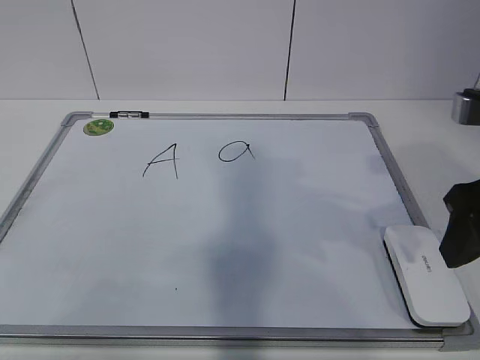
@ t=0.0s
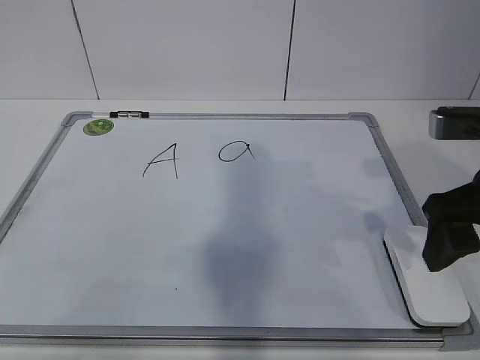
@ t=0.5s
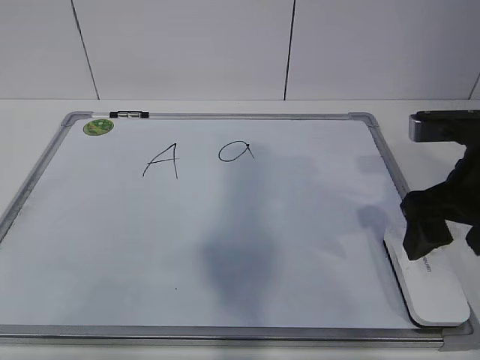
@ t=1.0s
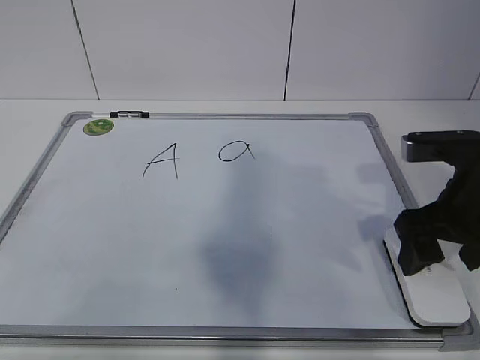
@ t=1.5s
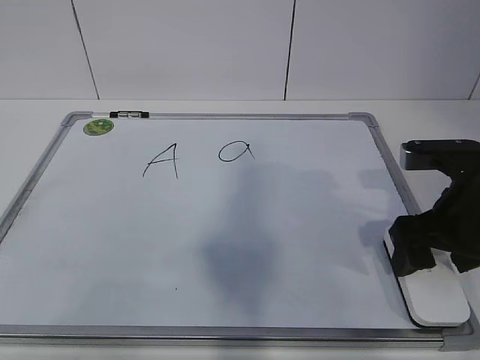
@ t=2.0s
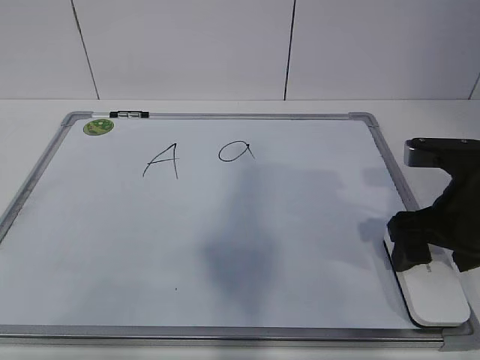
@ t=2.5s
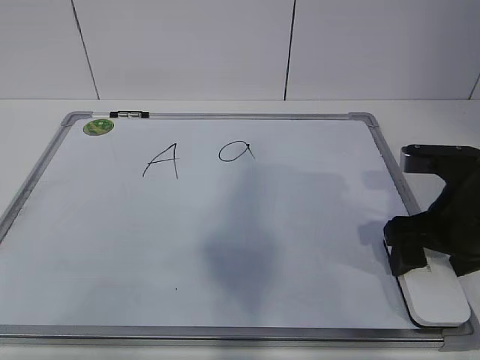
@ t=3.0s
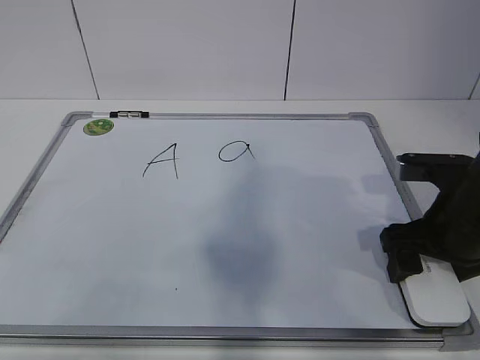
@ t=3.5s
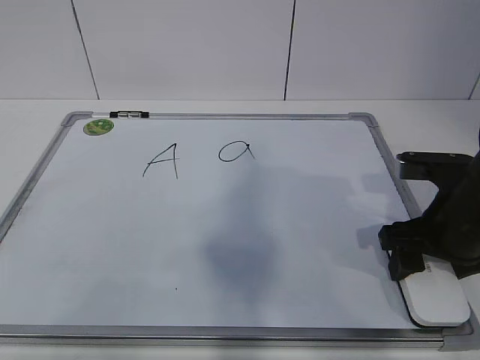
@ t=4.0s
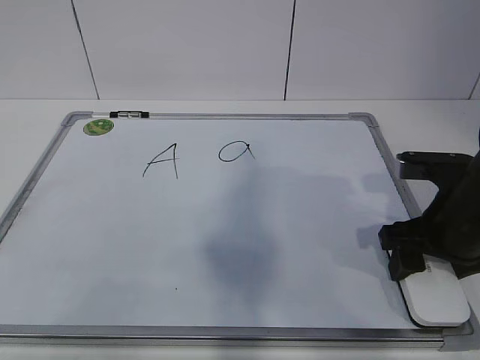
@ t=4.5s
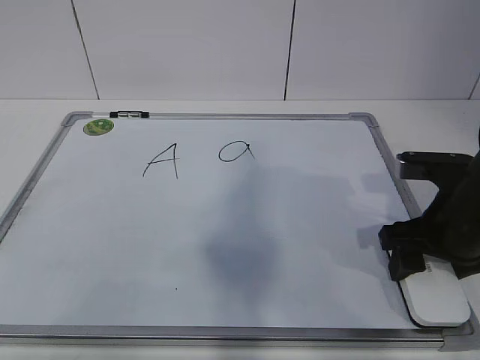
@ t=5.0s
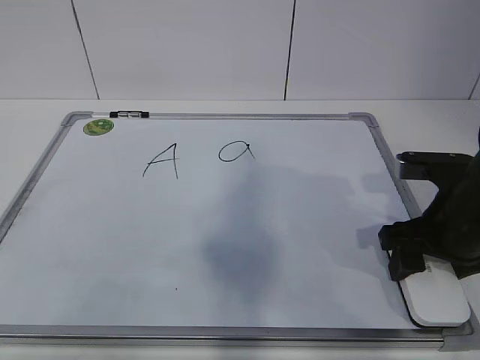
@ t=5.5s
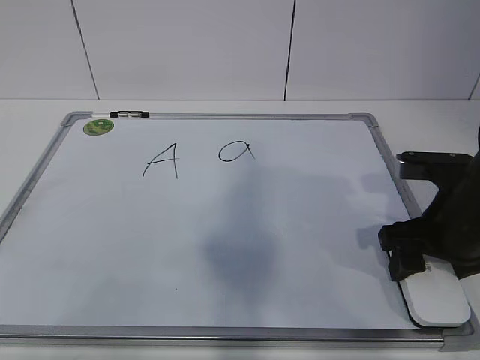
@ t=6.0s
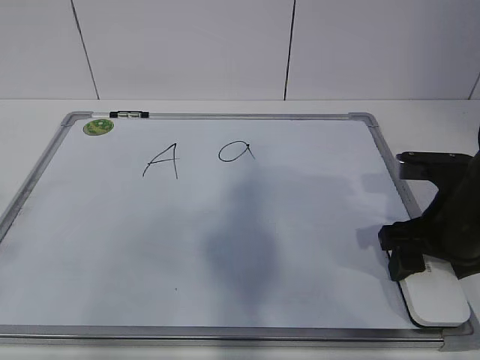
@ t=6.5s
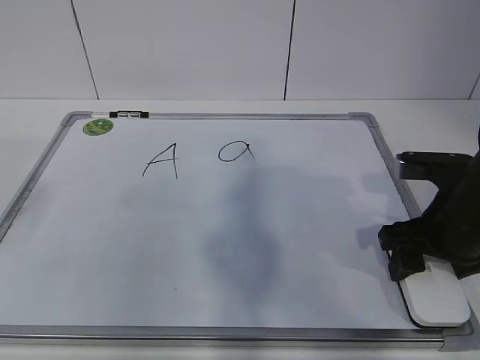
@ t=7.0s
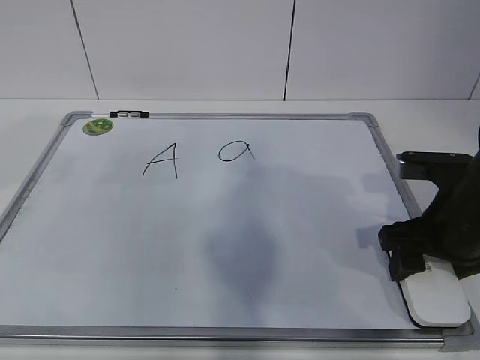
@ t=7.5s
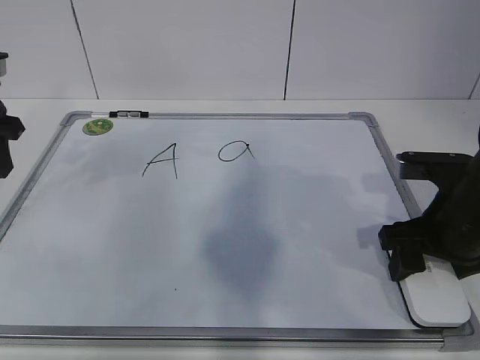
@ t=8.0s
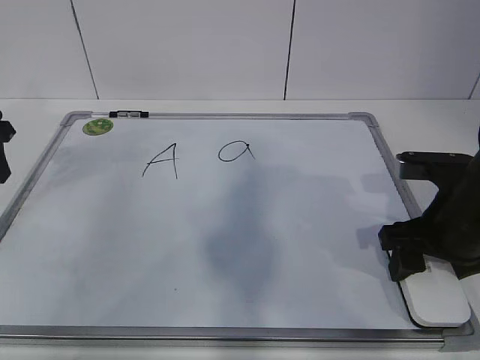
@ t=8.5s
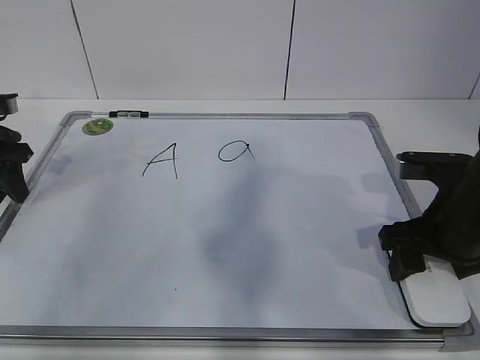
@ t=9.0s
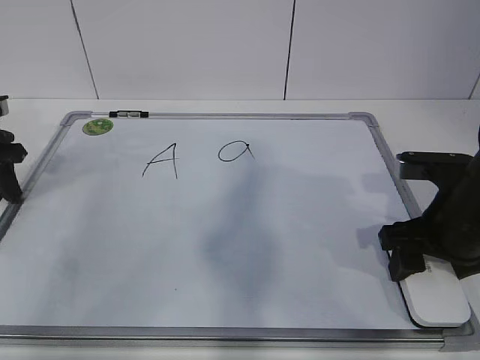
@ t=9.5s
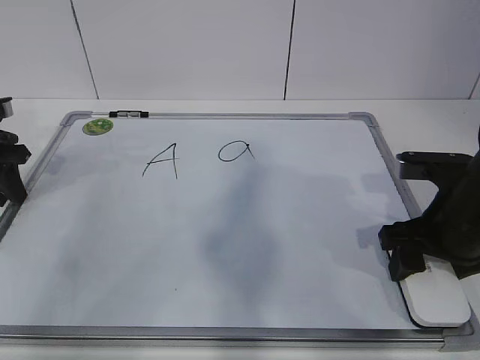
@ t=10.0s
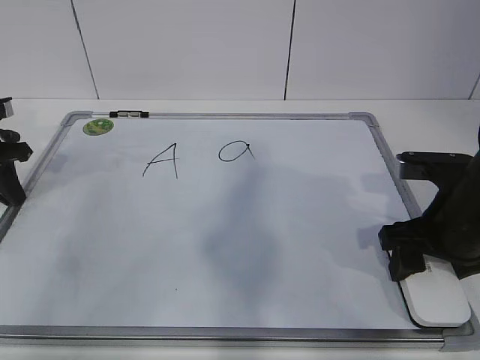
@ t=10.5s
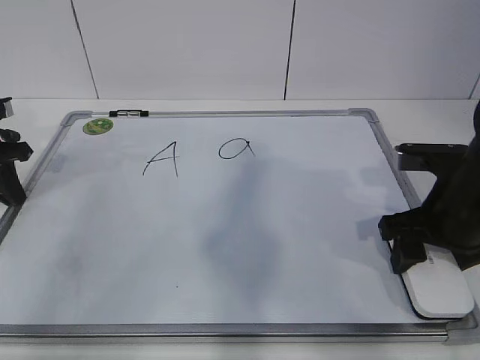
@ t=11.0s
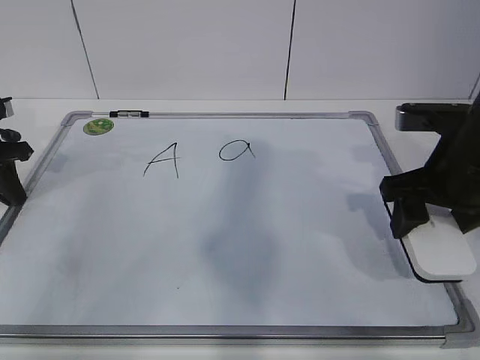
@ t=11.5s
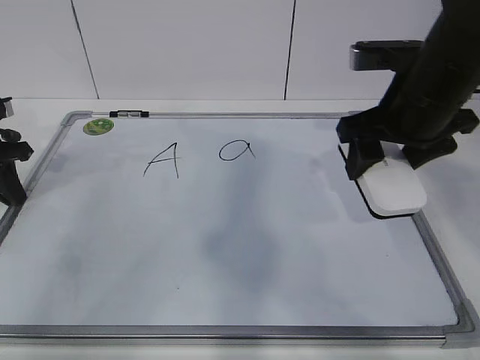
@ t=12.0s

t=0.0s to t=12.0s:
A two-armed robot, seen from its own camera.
Task of the whole recording: pick up the eraser on the blackboard and erase the letter "a".
Step, t=0.0s to t=2.0s: Grab the eraser with your right hand.
Step, t=2.5s to t=7.5s: Hold the drawing board steady with your left hand.
t=0.0s to t=2.0s: The right gripper shifts some 10 cm downward, and opens up.
t=2.0s to t=4.0s: The right gripper closes its fingers.
t=4.0s to t=6.0s: The two grippers keep their place.
t=6.0s to t=8.0s: The left gripper travels forward by roughly 35 cm.
t=8.0s to t=10.0s: The left gripper moves downward, some 10 cm.
t=10.0s to t=12.0s: The right gripper travels upward and forward by approximately 10 cm. Meanwhile the left gripper closes its fingers.

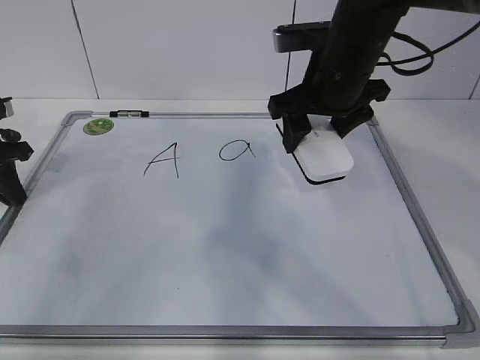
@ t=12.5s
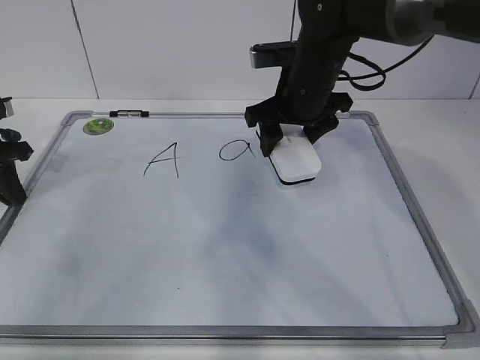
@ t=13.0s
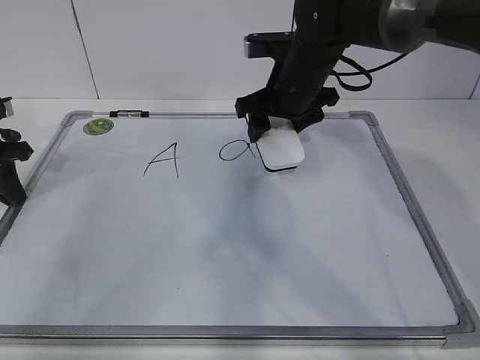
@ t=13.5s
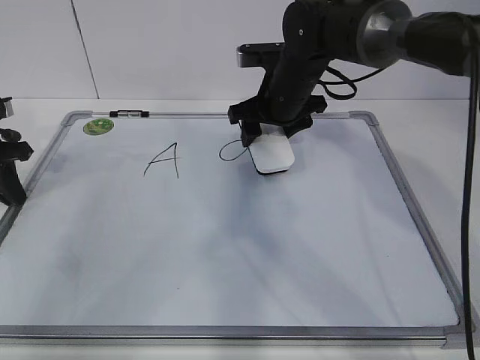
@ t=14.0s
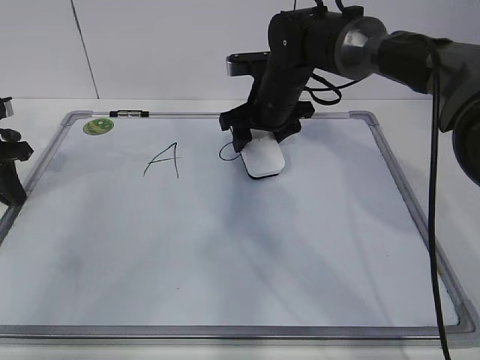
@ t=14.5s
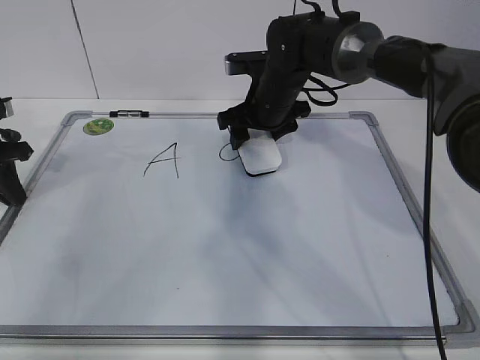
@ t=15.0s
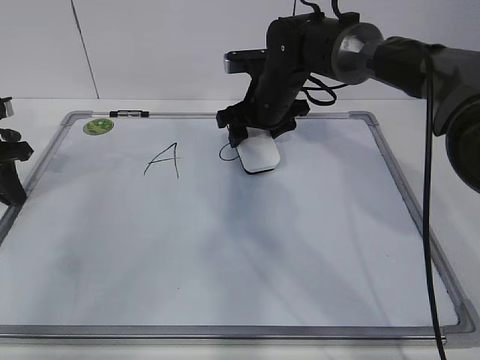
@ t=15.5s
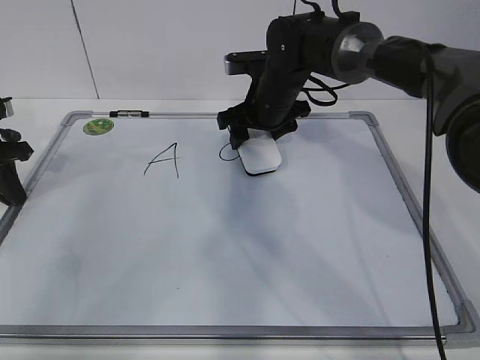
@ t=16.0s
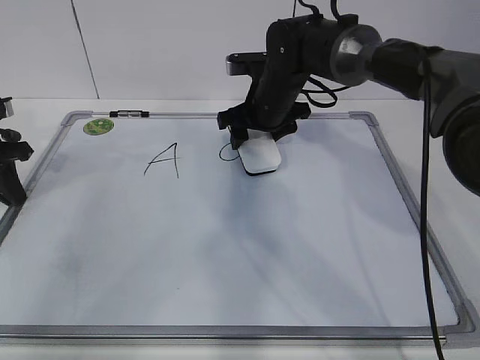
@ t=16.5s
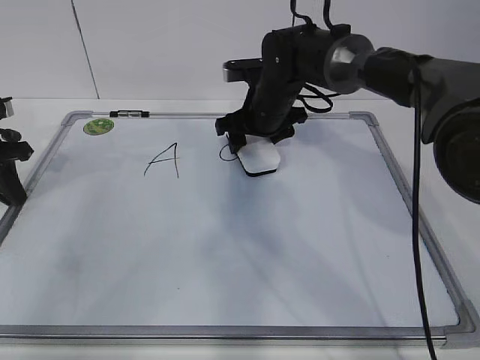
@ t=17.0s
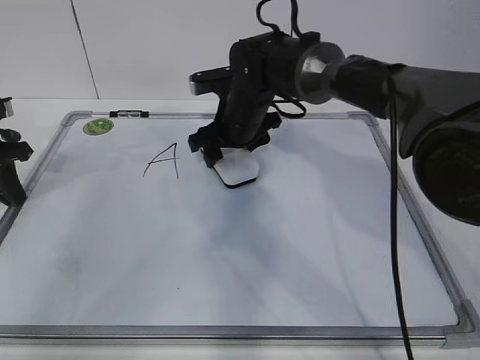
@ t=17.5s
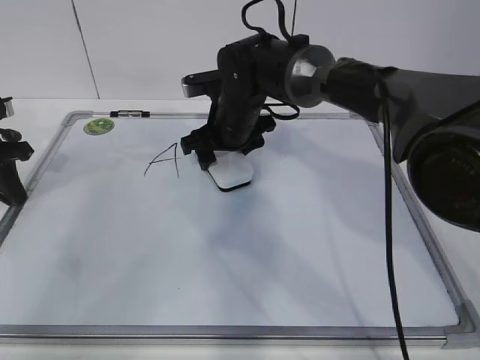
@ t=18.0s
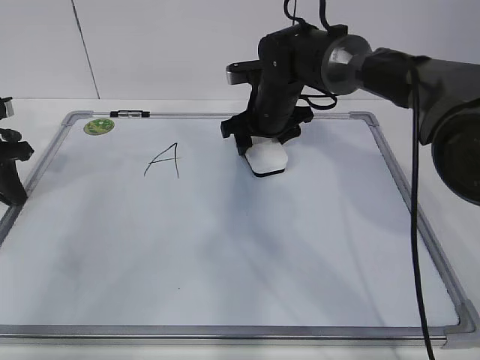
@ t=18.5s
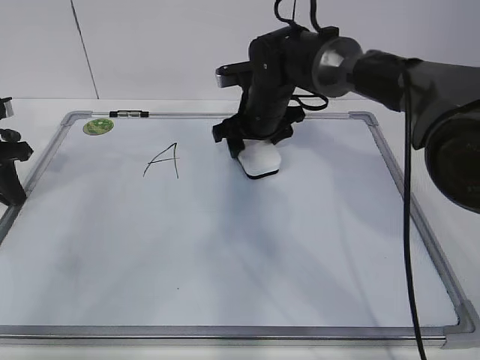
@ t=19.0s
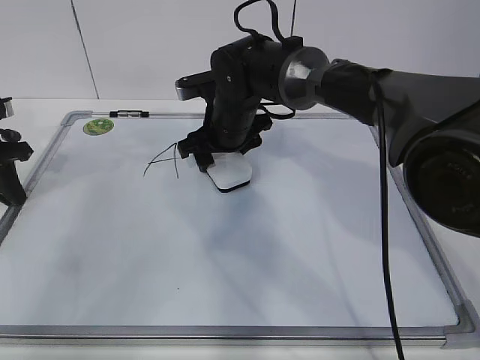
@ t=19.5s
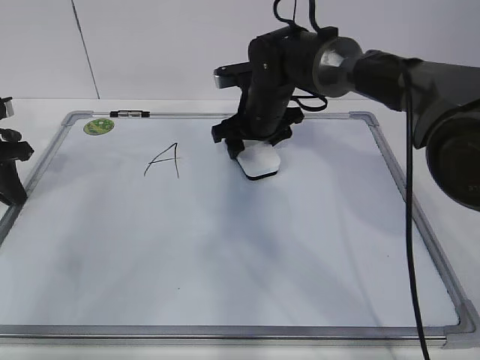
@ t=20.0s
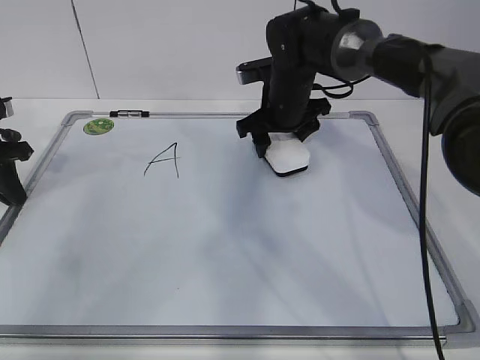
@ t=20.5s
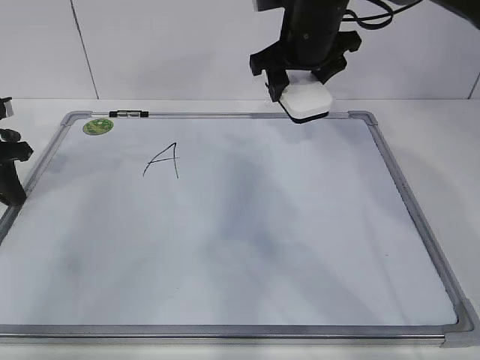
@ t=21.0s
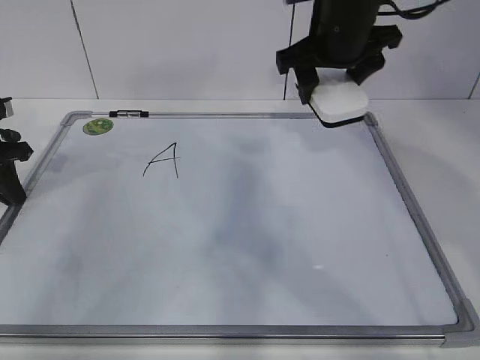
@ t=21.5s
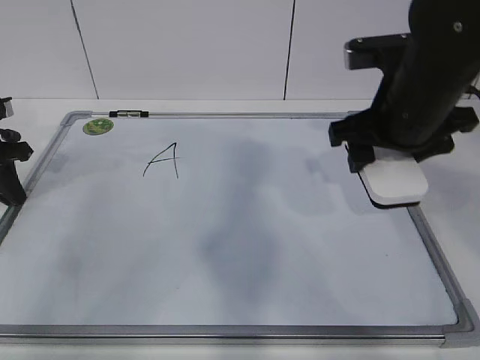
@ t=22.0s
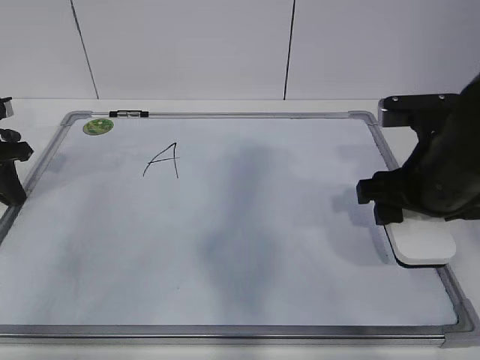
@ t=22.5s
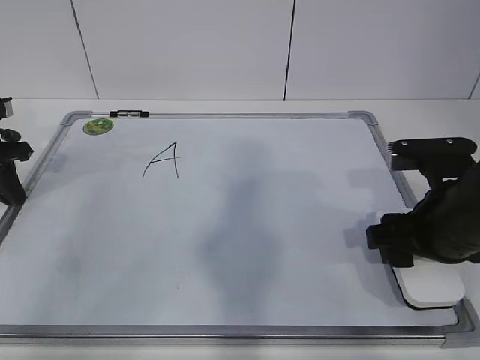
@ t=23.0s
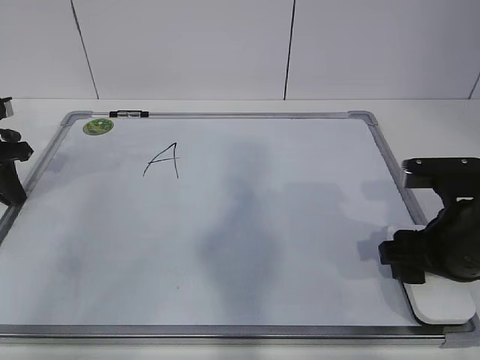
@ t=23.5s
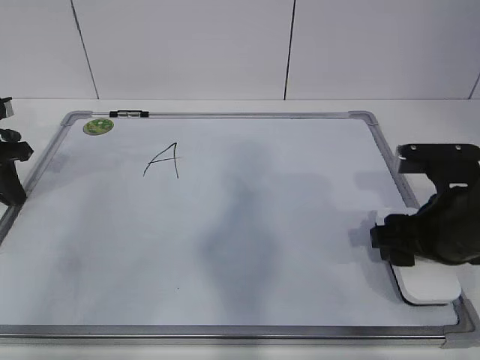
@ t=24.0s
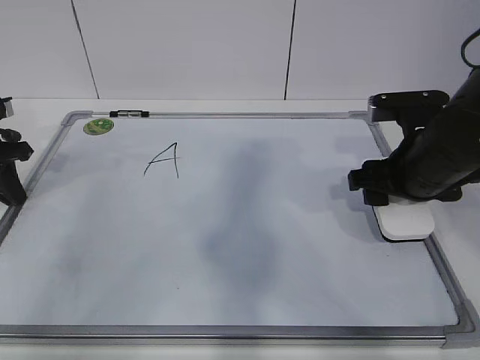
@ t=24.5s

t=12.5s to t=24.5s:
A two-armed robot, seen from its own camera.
Task of the whole recording: pick up the eraser on the blackboard and erase the letter "a".
Step, t=12.5s to t=15.5s: Erase the letter a with your right hand.
Step, t=16.0s to t=21.0s: Put down the eraser with your right hand.
t=12.5s to t=14.5s: The right gripper heads forward, downward and to the left, covering approximately 15 cm.
t=14.5s to t=16.5s: Neither gripper changes place.
t=18.5s to t=20.5s: The right gripper moves about 5 cm to the left and comes back.
t=20.5s to t=22.5s: The right gripper goes roughly 25 cm backward and to the right.

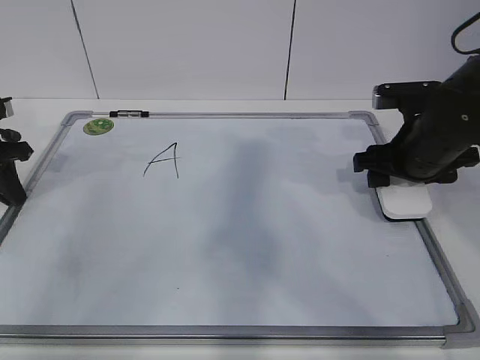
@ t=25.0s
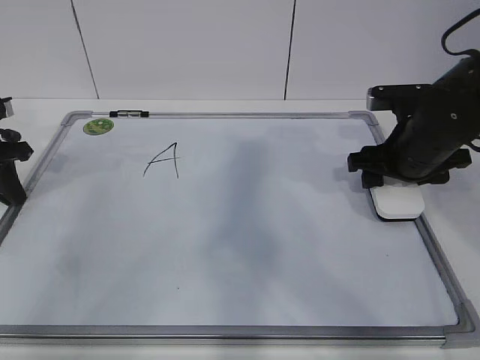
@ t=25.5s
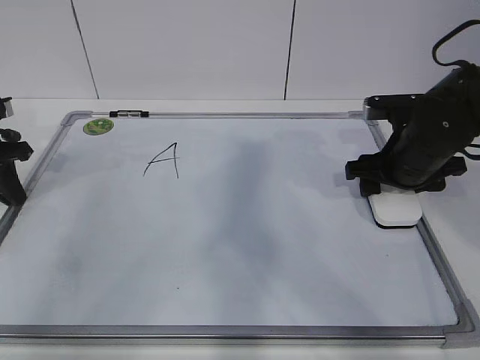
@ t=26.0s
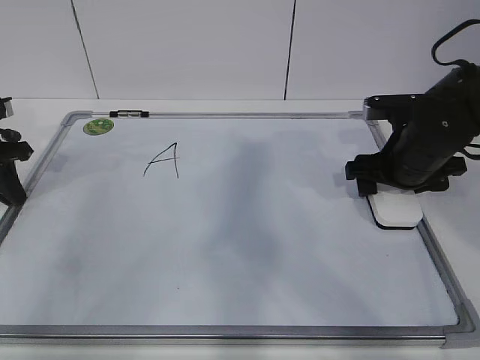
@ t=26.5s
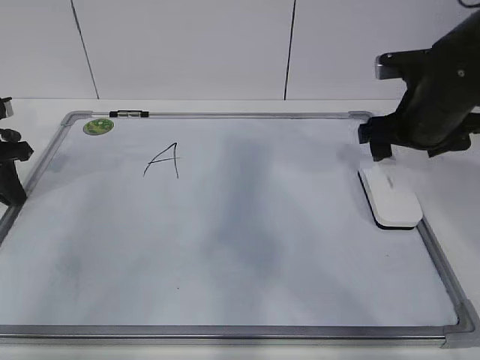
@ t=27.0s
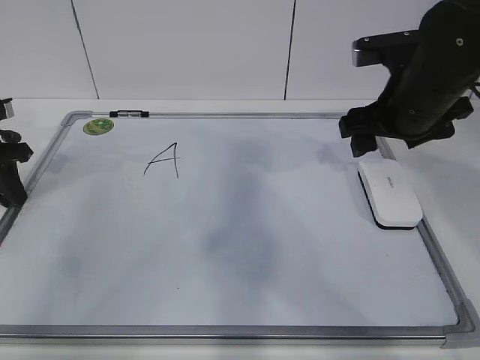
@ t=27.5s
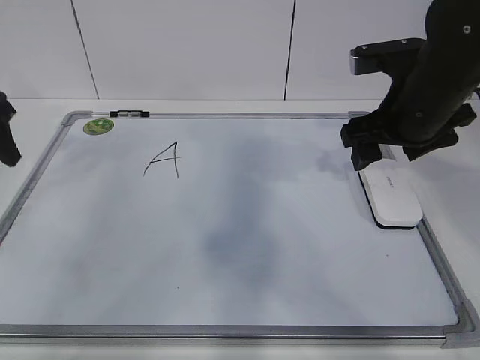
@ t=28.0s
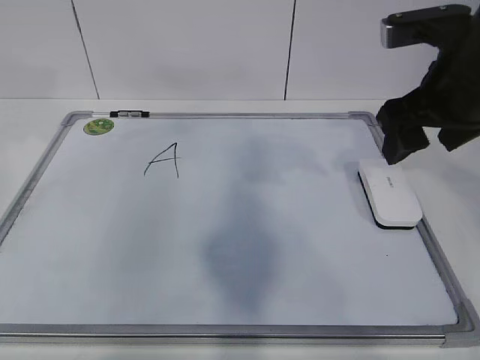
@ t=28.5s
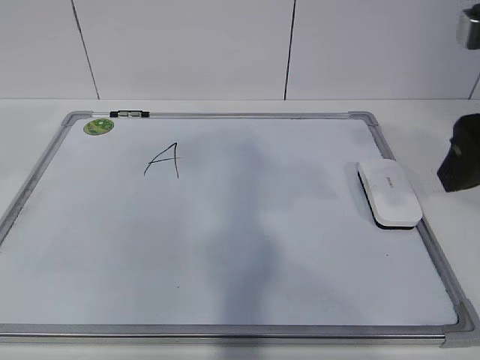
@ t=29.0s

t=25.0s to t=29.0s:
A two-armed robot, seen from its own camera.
Task of the whole recording: pick up the eraser on the blackboard and erase the letter "a".
t=25.0s to t=27.0s: The right gripper opens up.
t=27.0s to t=29.0s: The right gripper moves backward and upward, roughly 20 cm, and closes its fingers; the left gripper travels upward and backward by roughly 25 cm, and opens its fingers.
